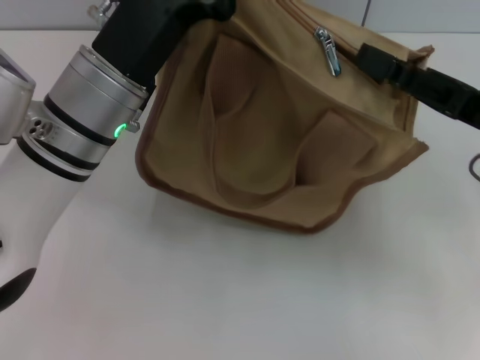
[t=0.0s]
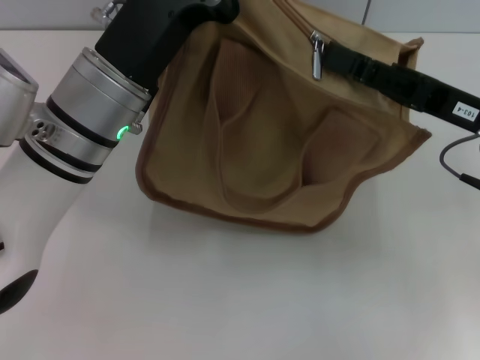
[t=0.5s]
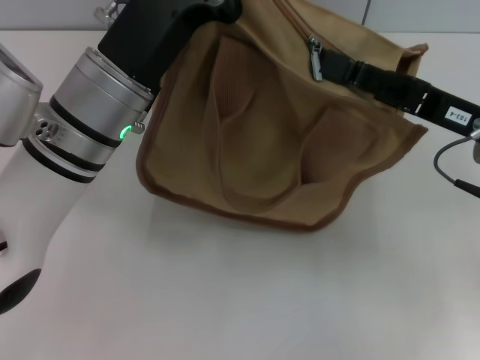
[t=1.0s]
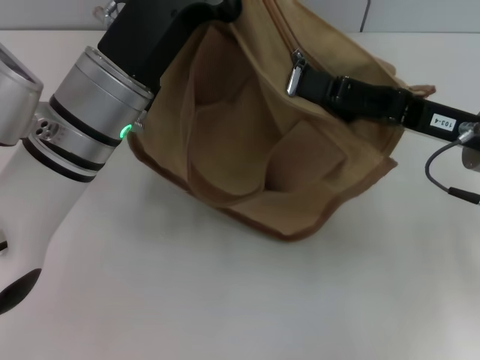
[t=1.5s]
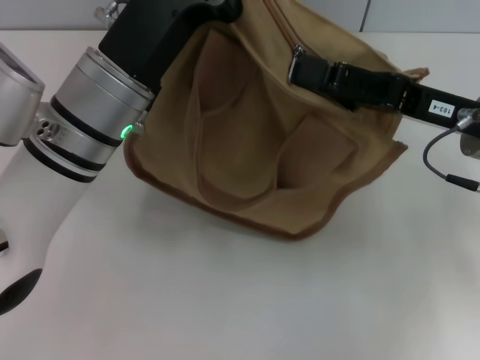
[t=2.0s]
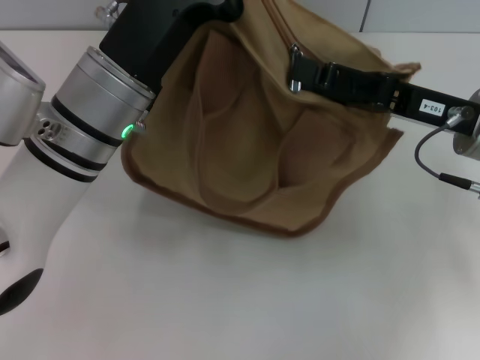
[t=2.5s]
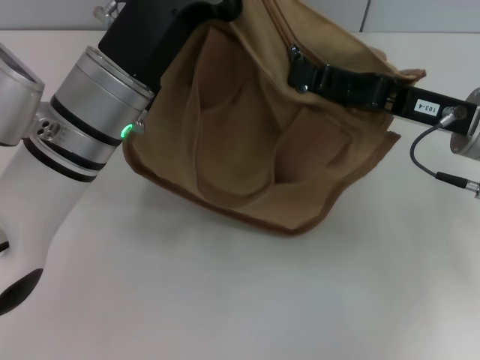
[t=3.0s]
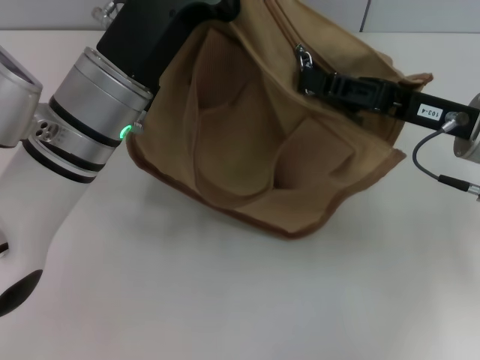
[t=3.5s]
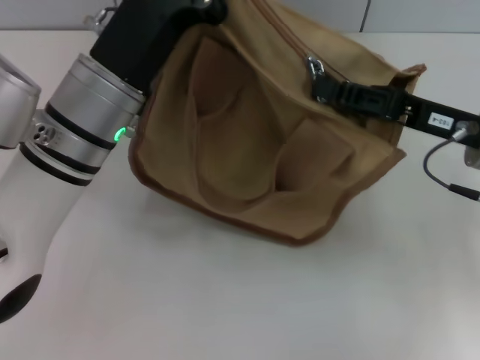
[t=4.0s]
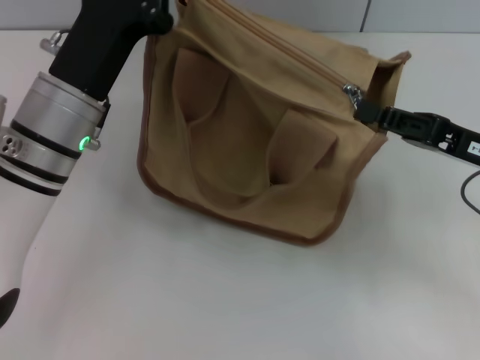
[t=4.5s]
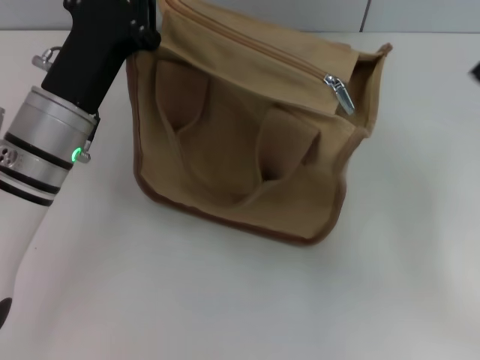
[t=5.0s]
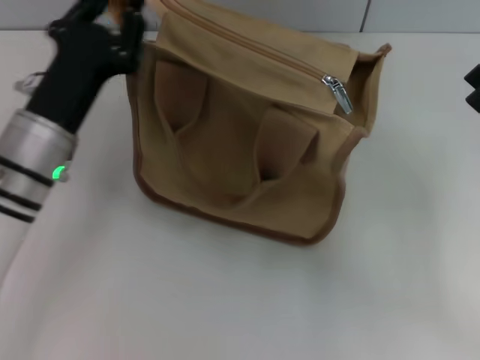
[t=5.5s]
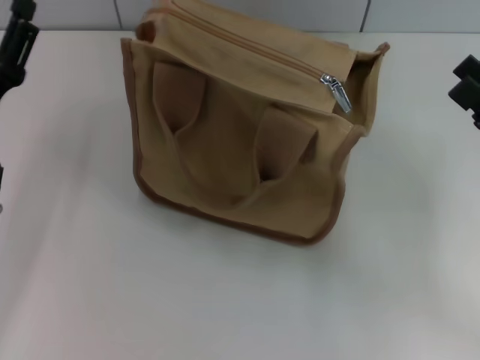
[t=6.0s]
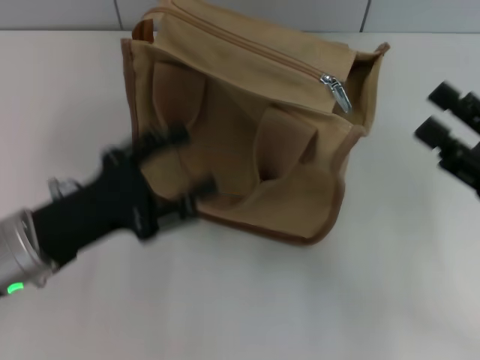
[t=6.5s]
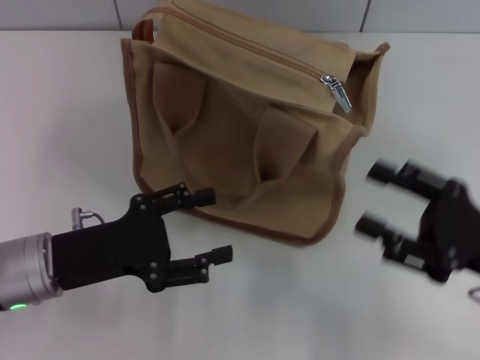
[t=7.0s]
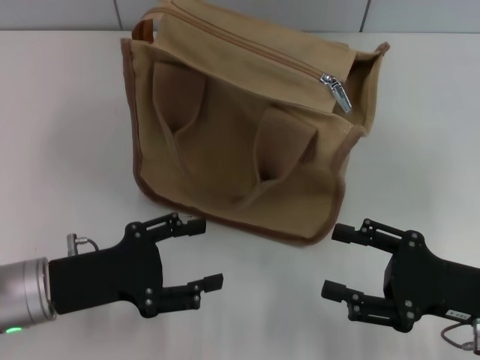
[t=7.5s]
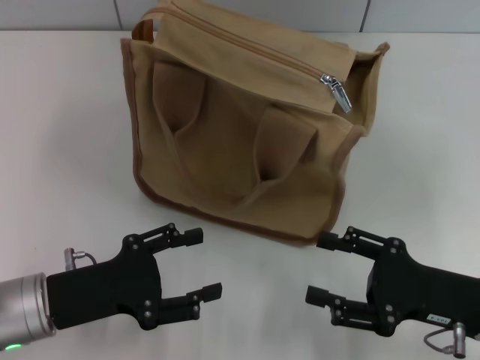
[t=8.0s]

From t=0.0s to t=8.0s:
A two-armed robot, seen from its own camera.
Step, from t=0.0s to t=4.5s: Pull up the zipper with your right hand.
Step, from t=5.0s to t=6.0s: Grab the zipper with your left hand.
From t=0.0s to t=2.0s: The grippers stay close to where they were, moving slightly.
From t=2.0s to t=4.0s: The right gripper closes its fingers.
From t=4.0s to t=6.0s: The right gripper is displaced backward and to the right by roughly 10 cm, and opens its fingers. Meanwhile the left gripper shifts about 15 cm to the left and downward, and opens up.
From t=6.0s to t=8.0s: The left gripper goes about 5 cm backward. The right gripper moves downward and to the left, roughly 10 cm.
